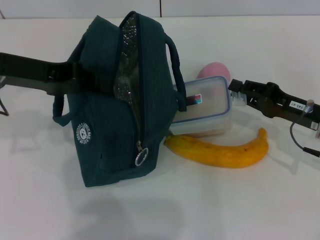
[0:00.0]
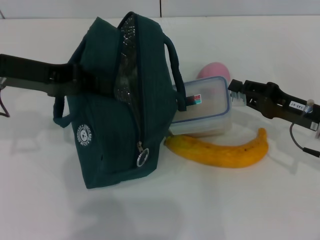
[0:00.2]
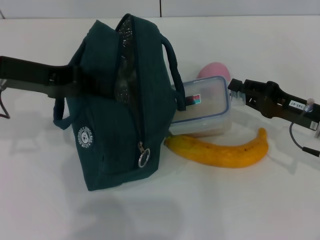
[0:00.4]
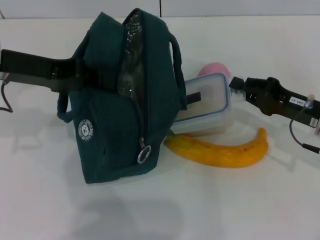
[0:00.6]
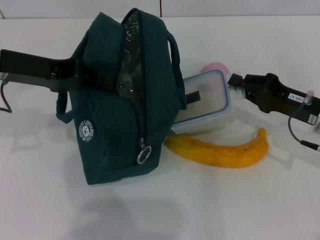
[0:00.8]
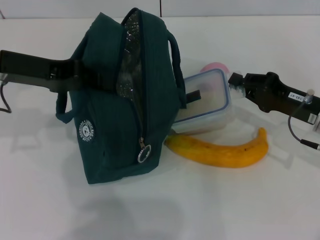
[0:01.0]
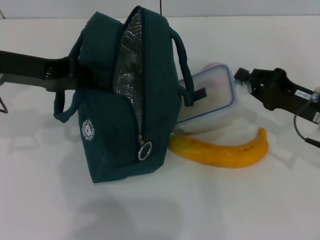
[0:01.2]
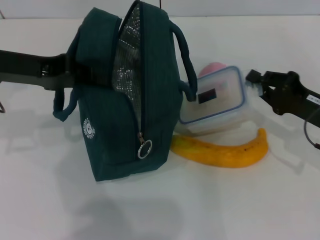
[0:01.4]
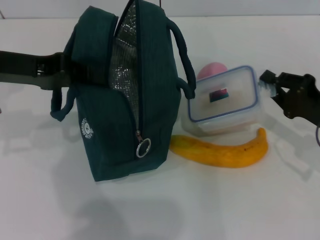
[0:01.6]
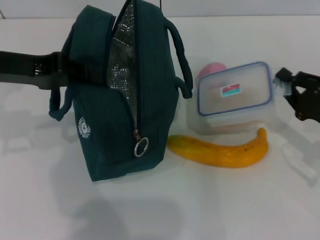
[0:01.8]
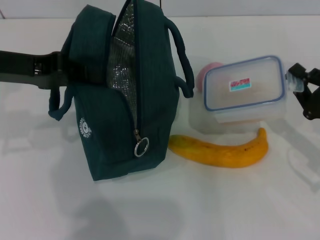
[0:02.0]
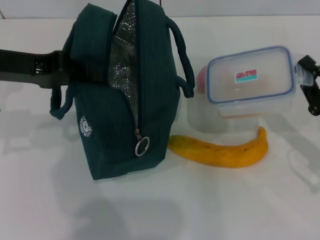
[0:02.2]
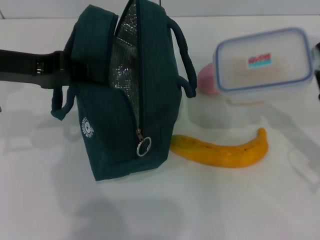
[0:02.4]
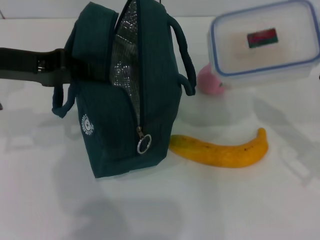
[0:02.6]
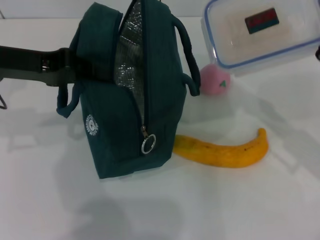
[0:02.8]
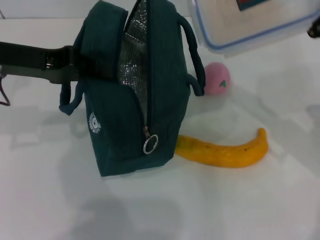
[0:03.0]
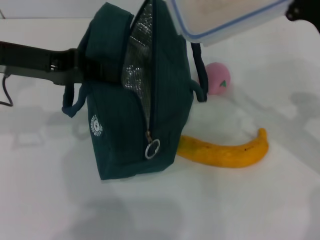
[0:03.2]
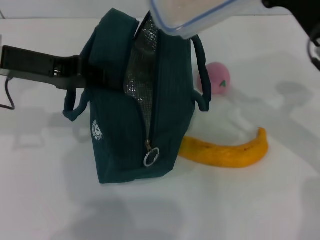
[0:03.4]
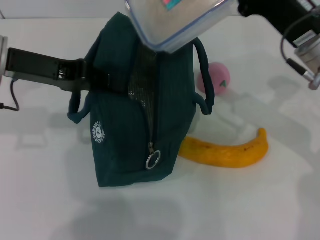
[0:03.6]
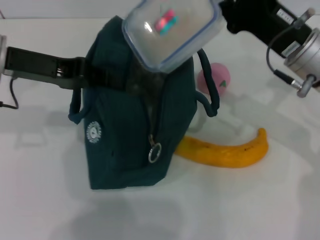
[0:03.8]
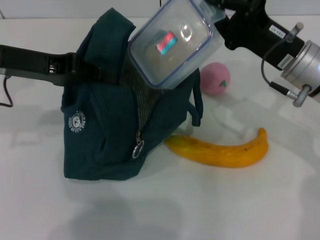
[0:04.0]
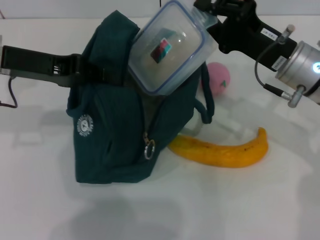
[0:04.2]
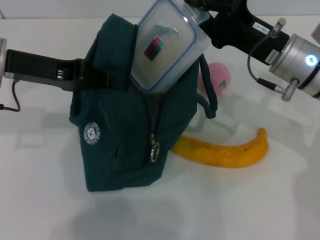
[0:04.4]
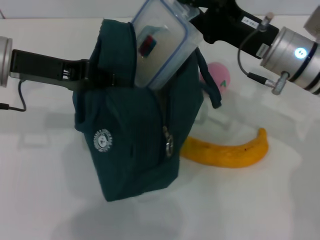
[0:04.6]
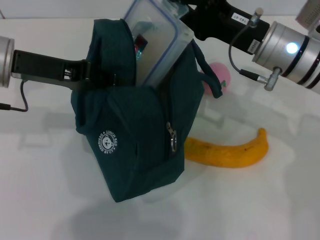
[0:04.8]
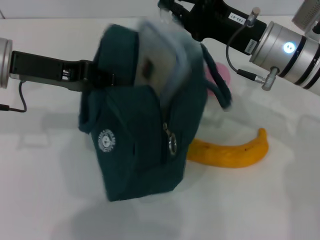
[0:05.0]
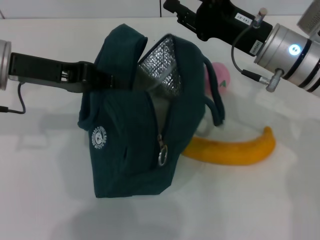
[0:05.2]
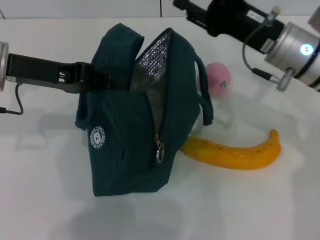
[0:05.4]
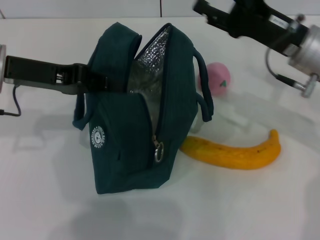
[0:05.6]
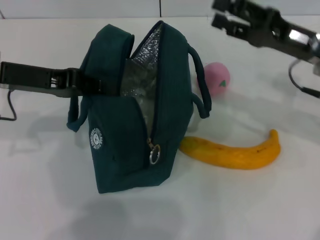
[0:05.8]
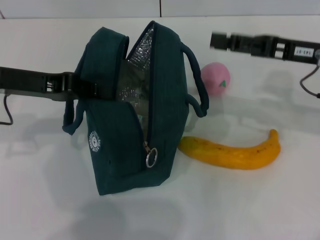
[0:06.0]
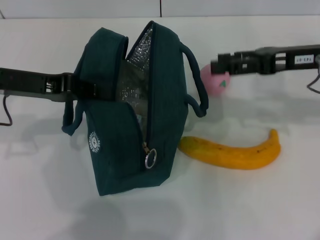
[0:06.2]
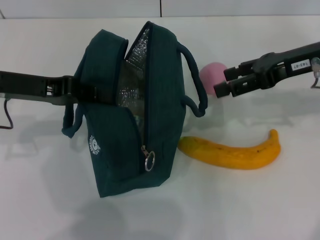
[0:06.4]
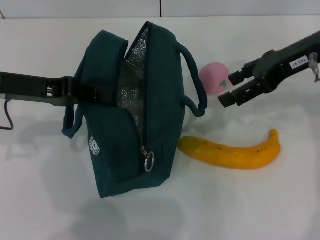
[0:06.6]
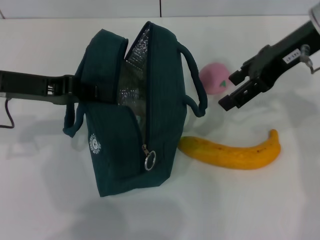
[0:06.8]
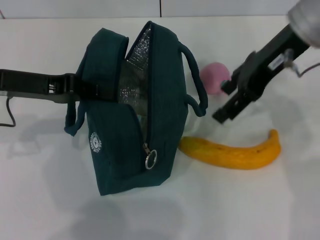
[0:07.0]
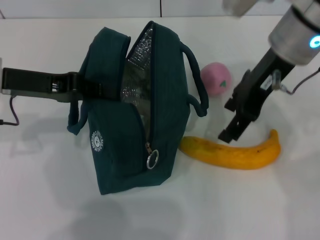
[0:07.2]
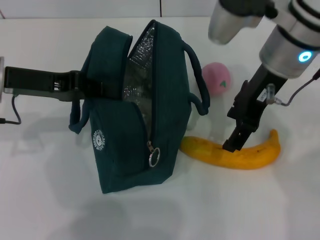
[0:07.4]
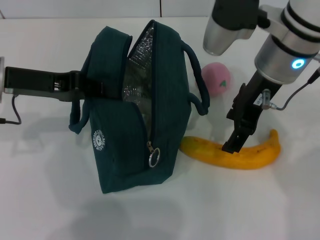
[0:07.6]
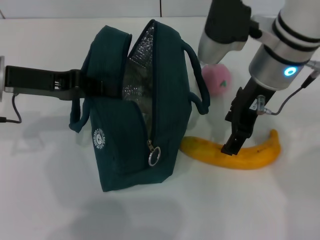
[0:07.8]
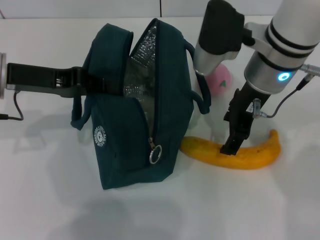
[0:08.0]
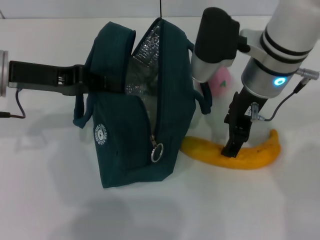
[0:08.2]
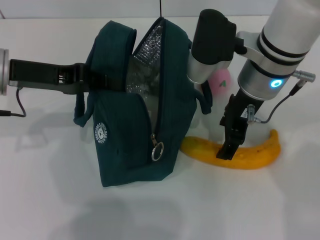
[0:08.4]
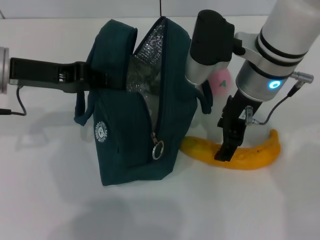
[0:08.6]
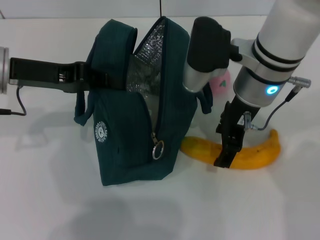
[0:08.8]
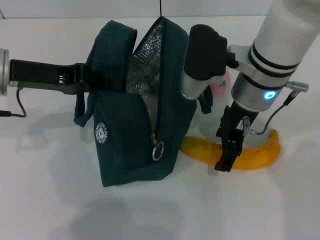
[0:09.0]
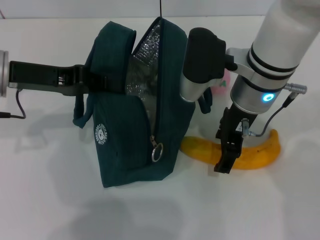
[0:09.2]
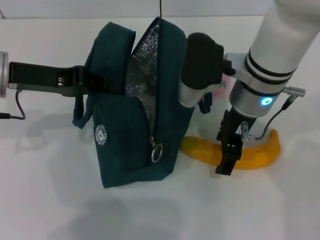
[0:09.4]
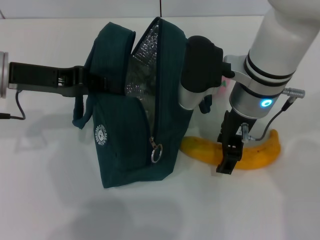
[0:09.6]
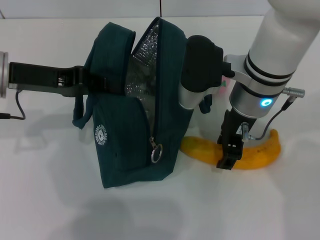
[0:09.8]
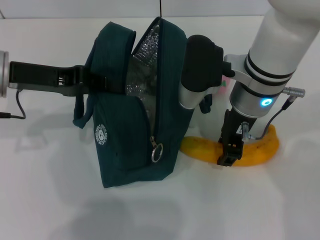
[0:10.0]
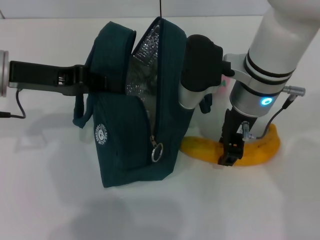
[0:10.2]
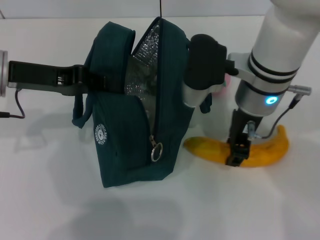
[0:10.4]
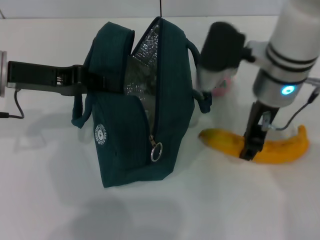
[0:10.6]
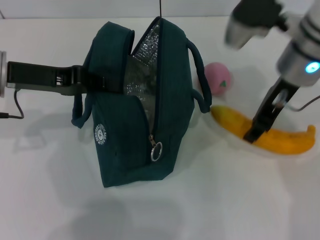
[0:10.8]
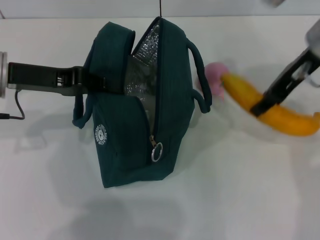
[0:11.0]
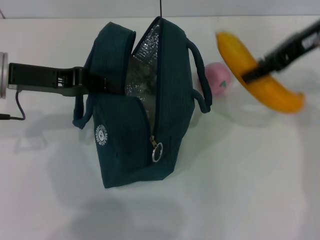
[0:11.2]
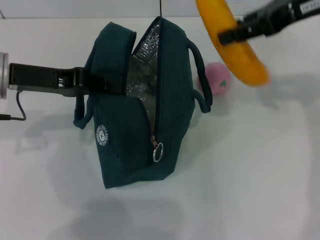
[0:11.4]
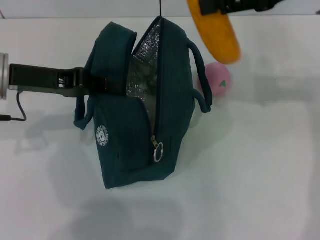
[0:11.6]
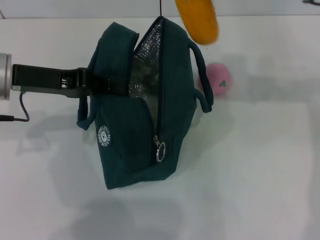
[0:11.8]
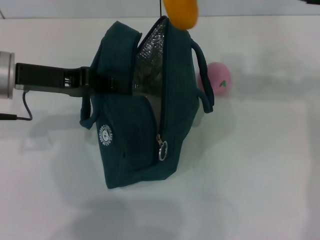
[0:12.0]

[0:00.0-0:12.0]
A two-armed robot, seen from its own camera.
Step, 0:00.8 to 0:05.2: Place the lunch box into the lunch bag with your right hand.
Step, 0:05.6 to 0:10.0: Take the banana with your right hand.
0:00.0 to 0:01.6: There are only small adjustments of the grippers.
0:01.6 to 0:03.0: The right gripper moves upward, approximately 5 cm.
0:03.0 to 0:04.4: The right gripper goes about 10 cm to the left and forward.
0:04.4 to 0:06.0: The right gripper is displaced to the right by approximately 5 cm, and opens up.
0:06.0 to 0:07.6: The right gripper travels to the left and upward by approximately 15 cm.
0:07.6 to 0:09.0: The right gripper moves about 5 cm.
0:09.0 to 0:10.4: The right gripper closes up.
0:10.4 to 0:12.0: The right gripper heads upward and to the right, covering approximately 15 cm.

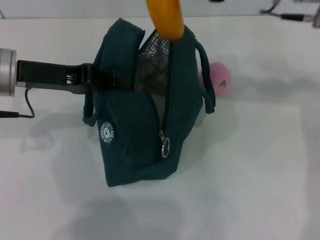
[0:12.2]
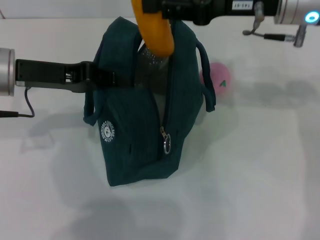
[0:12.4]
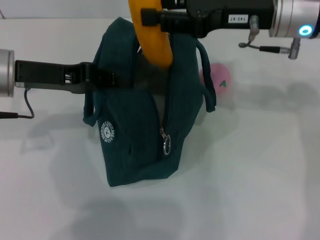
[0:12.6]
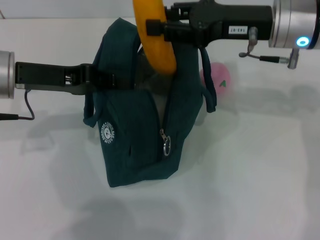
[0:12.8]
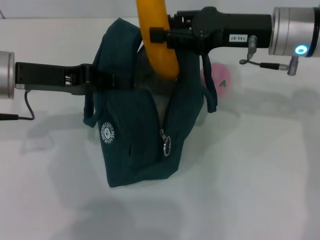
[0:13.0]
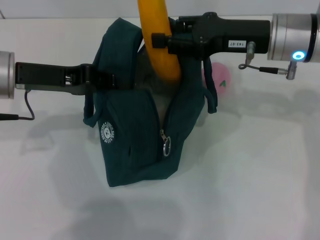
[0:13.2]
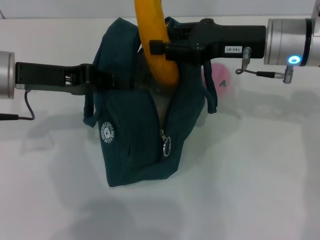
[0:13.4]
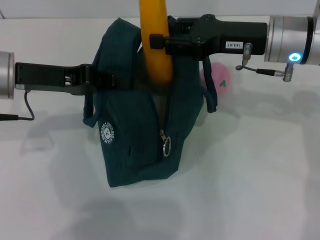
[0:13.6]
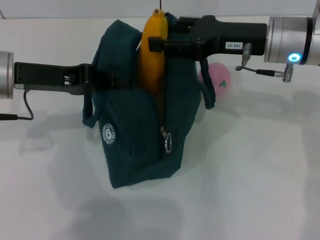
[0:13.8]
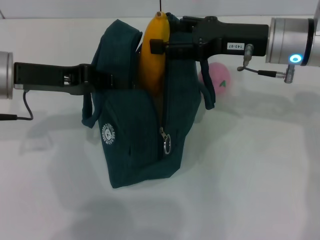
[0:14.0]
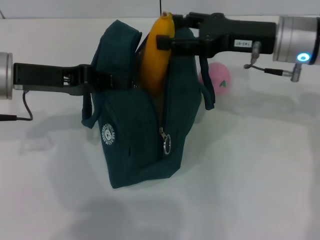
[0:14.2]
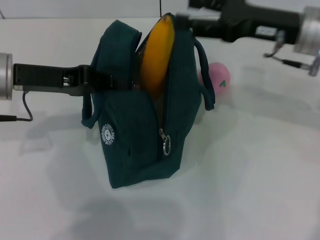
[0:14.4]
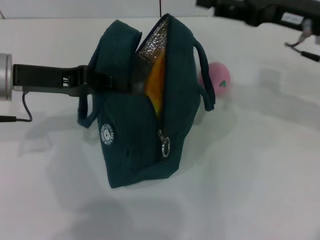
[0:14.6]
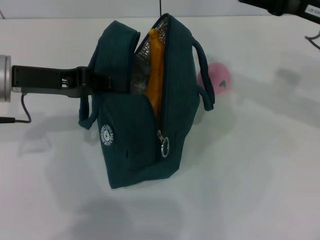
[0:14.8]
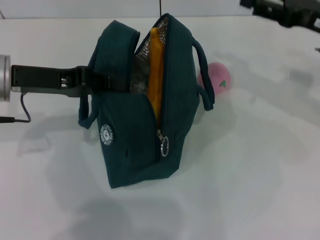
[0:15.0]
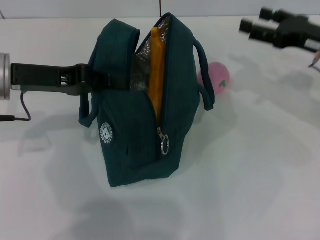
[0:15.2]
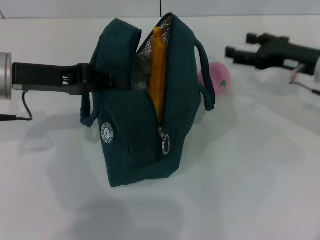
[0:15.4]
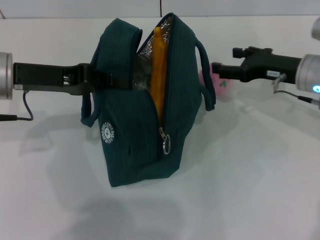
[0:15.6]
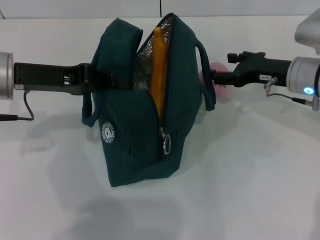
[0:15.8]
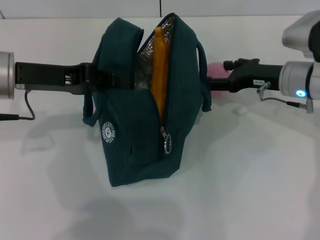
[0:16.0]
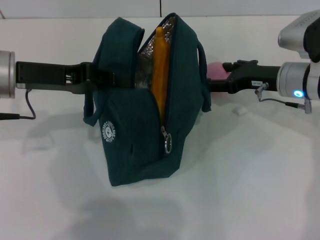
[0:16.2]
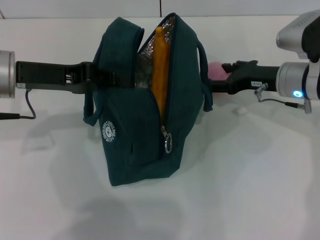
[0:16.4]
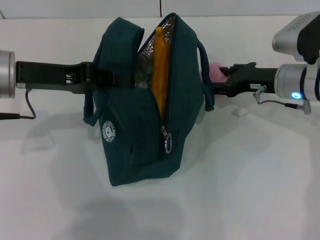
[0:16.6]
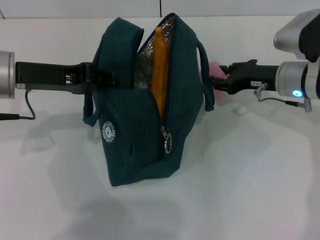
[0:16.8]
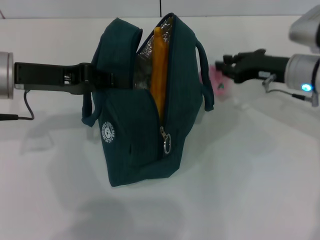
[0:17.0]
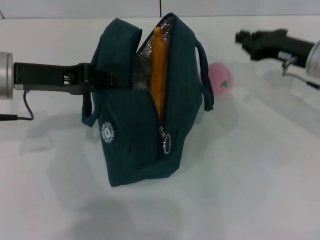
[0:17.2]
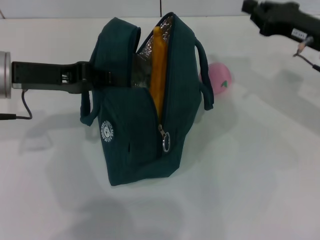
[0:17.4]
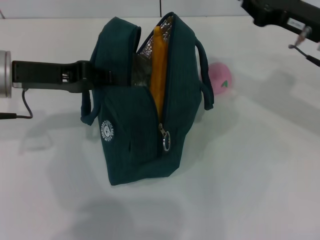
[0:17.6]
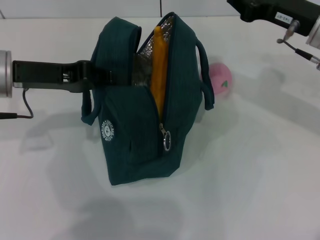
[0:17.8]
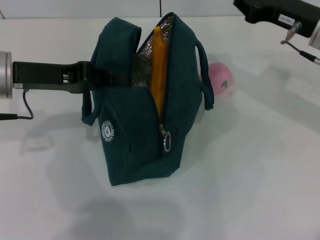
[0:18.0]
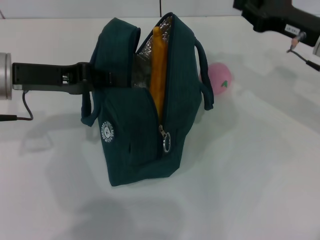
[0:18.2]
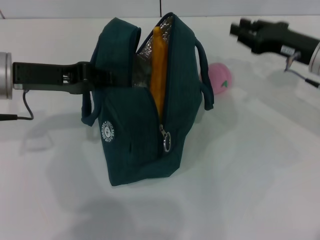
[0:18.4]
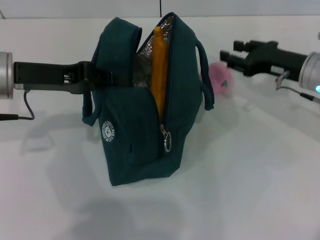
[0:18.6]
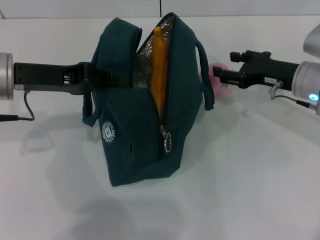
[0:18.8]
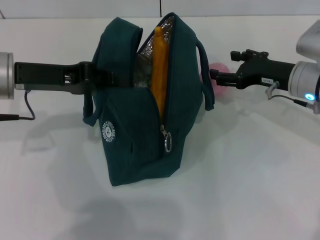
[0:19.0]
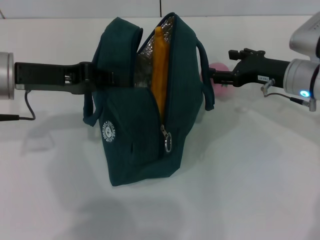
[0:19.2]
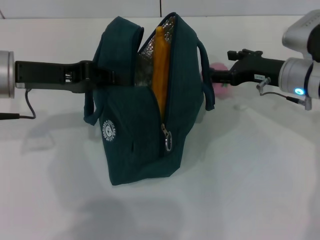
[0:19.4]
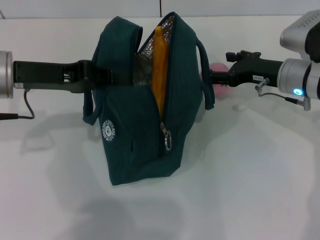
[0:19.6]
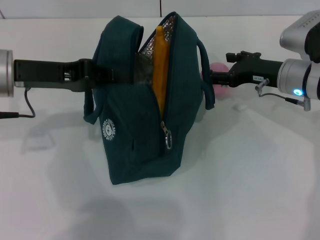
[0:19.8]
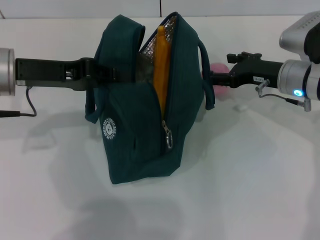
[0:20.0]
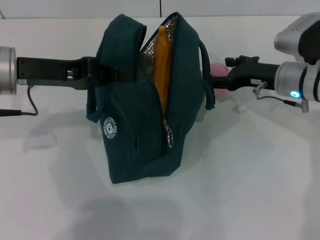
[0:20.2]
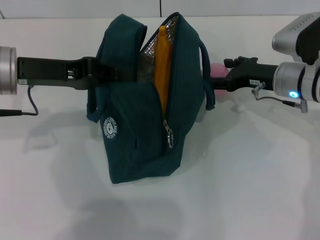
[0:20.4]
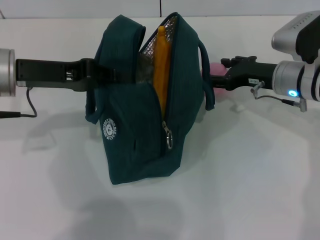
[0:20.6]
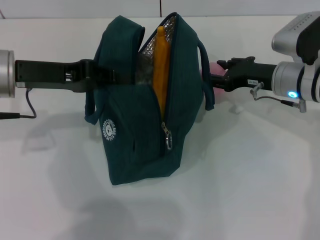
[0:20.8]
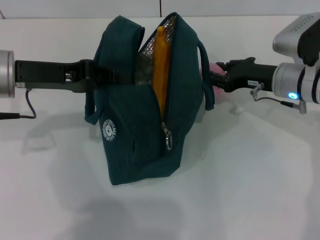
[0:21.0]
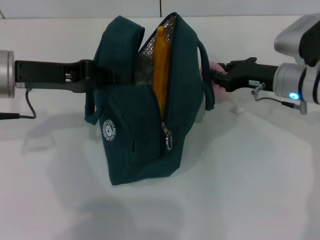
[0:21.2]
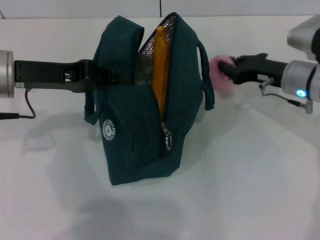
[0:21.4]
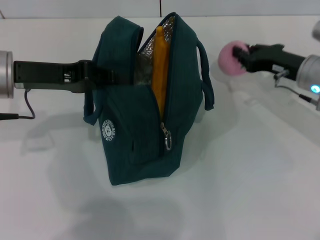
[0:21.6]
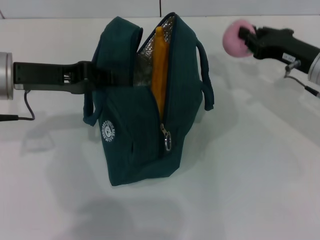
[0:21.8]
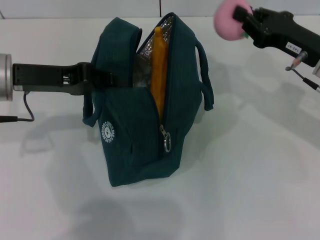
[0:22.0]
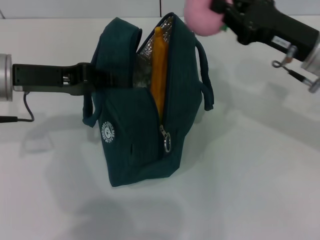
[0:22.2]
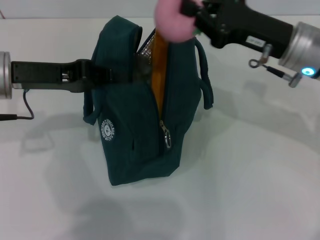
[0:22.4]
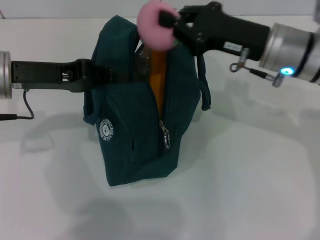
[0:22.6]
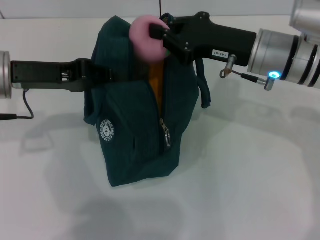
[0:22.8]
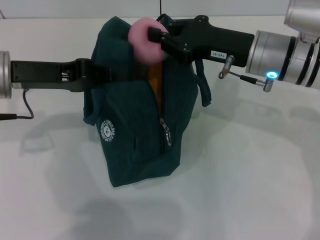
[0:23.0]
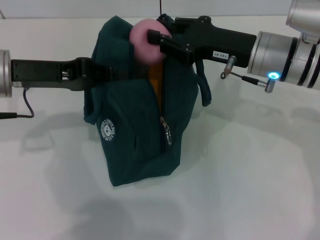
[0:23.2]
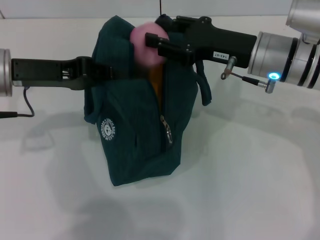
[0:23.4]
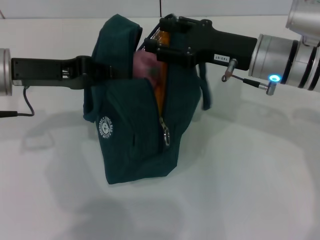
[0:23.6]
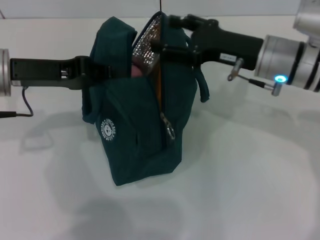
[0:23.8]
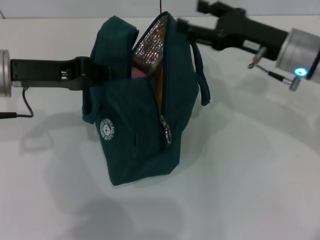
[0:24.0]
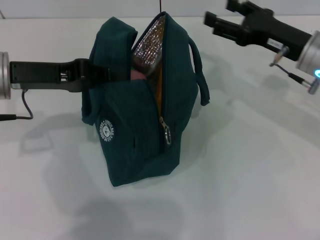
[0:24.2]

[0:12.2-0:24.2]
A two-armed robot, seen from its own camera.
Step, 0:12.2 to 0:14.4: Put the banana into the lunch bag with your right hand.
Step, 0:14.6 to 0:20.8: Grab the peach with your right hand.
0:12.2 to 0:13.8: The right gripper shifts approximately 10 cm downward.
0:13.8 to 0:15.2: The right gripper heads to the right, covering roughly 10 cm, and opens up.
0:15.2 to 0:16.6: The right gripper is displaced to the left and downward by some 10 cm.
0:16.6 to 0:18.2: The right gripper is displaced upward by about 5 cm, and closes its fingers.
0:18.2 to 0:19.8: The right gripper shifts roughly 5 cm downward, and opens.
0:19.8 to 0:21.2: The right gripper closes up.
0:21.2 to 0:22.6: The right gripper shifts some 10 cm upward.
0:22.6 to 0:24.2: The right gripper goes about 5 cm to the right, and opens its fingers.
